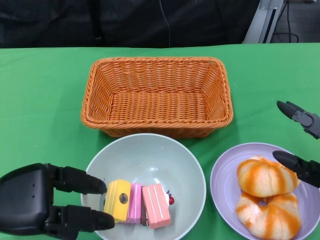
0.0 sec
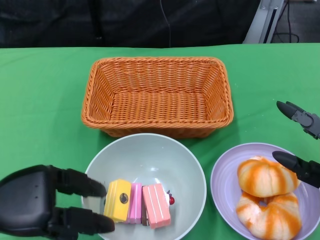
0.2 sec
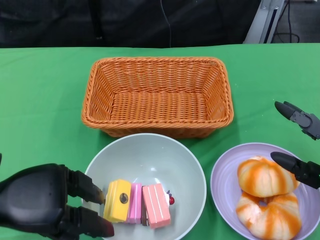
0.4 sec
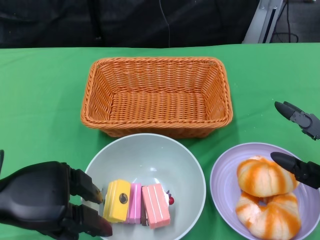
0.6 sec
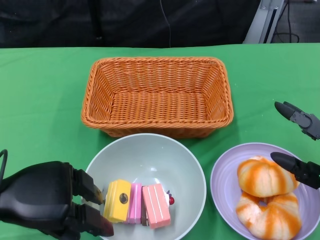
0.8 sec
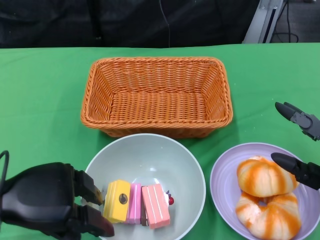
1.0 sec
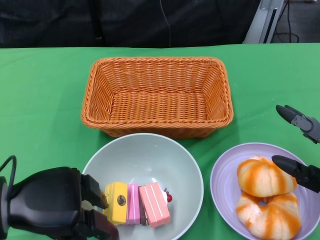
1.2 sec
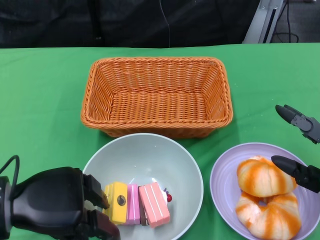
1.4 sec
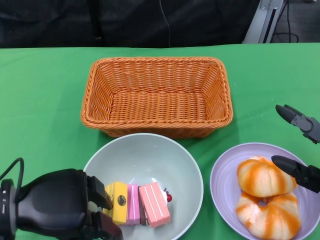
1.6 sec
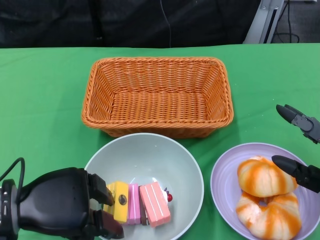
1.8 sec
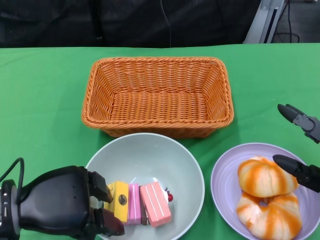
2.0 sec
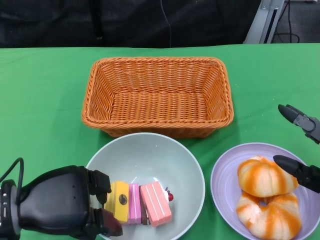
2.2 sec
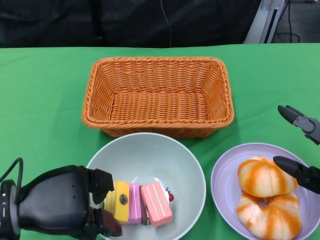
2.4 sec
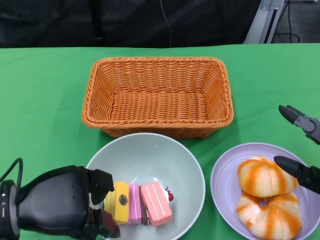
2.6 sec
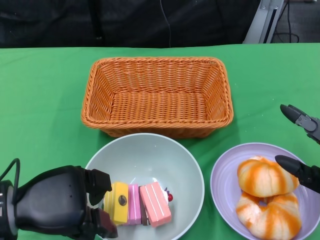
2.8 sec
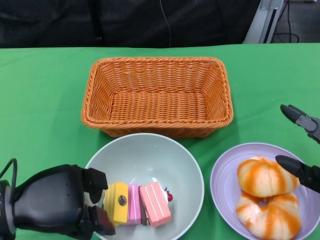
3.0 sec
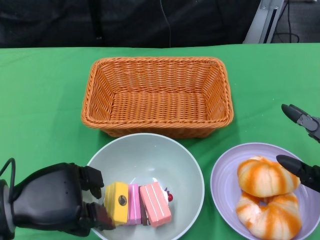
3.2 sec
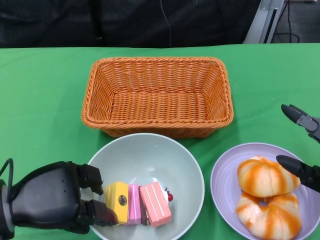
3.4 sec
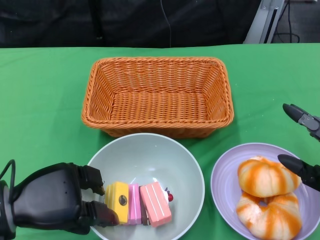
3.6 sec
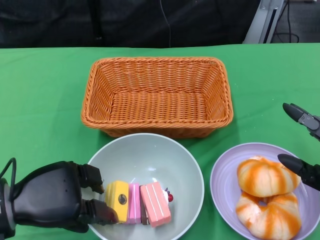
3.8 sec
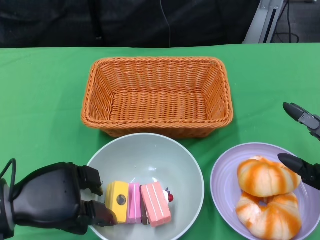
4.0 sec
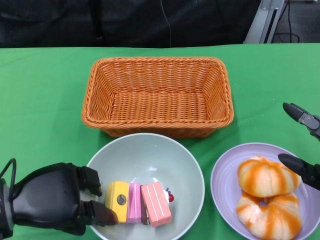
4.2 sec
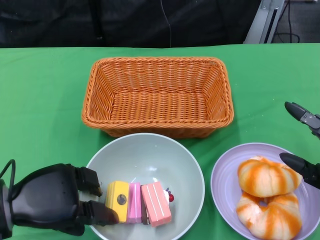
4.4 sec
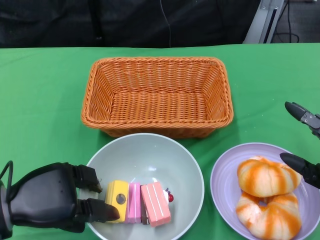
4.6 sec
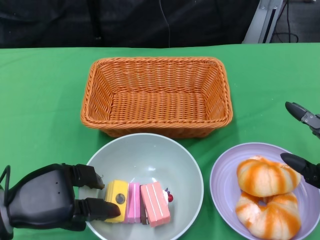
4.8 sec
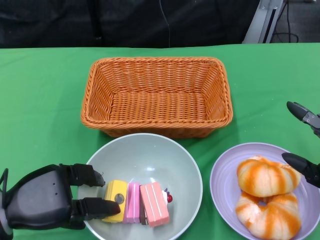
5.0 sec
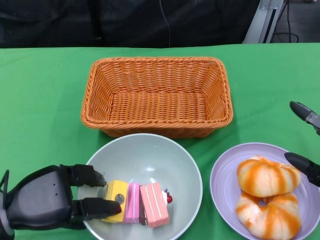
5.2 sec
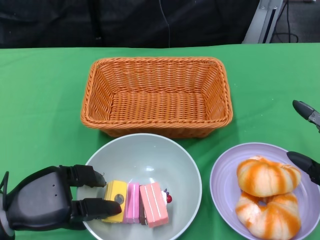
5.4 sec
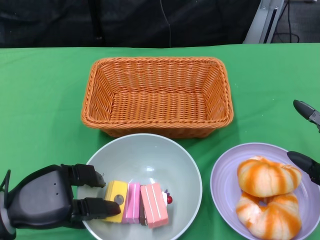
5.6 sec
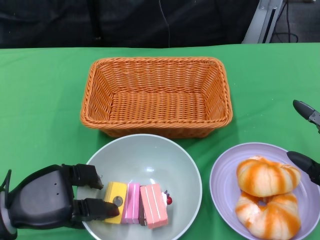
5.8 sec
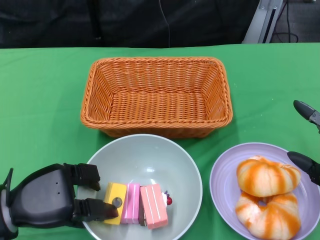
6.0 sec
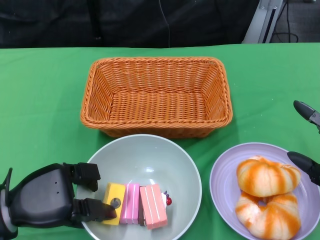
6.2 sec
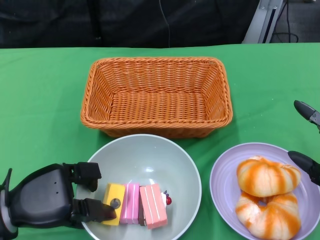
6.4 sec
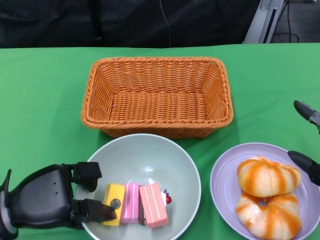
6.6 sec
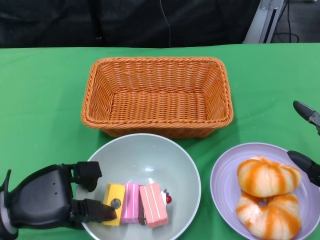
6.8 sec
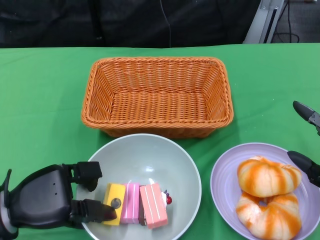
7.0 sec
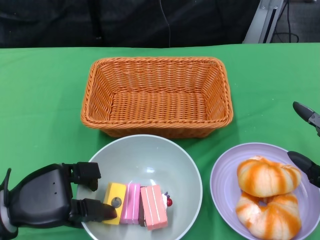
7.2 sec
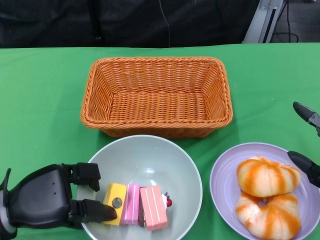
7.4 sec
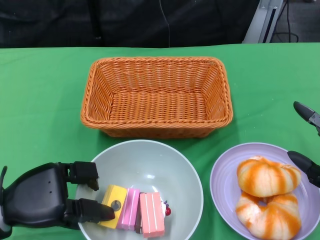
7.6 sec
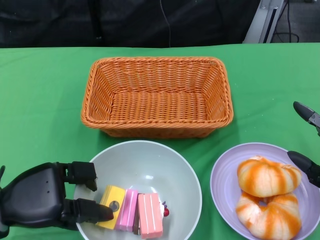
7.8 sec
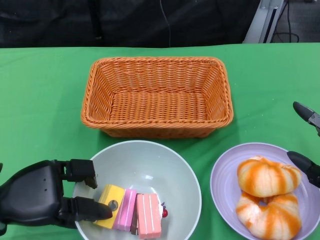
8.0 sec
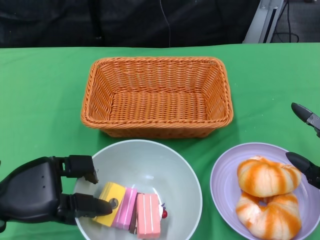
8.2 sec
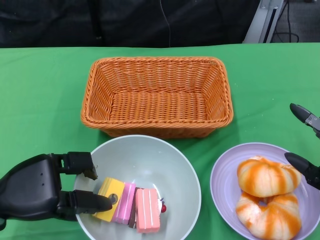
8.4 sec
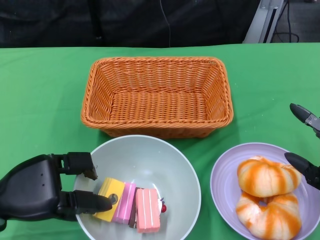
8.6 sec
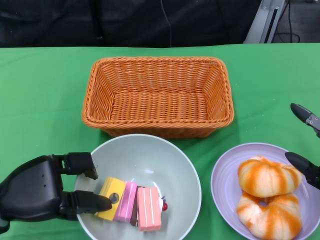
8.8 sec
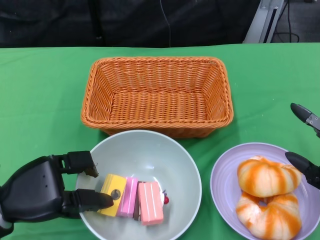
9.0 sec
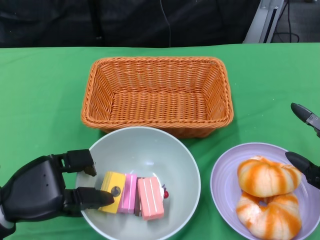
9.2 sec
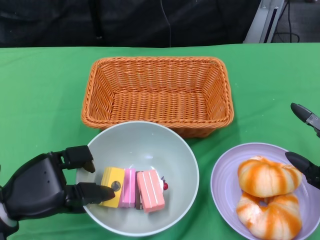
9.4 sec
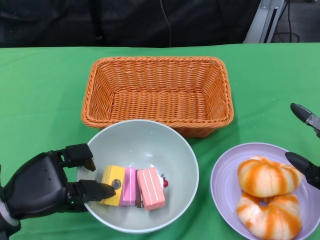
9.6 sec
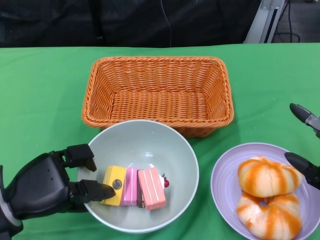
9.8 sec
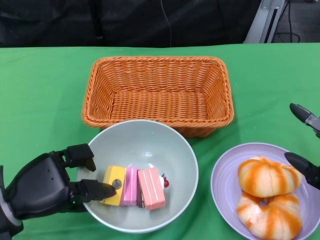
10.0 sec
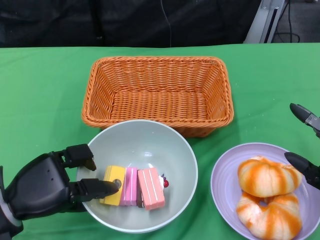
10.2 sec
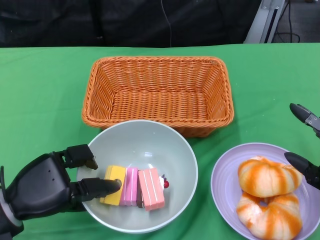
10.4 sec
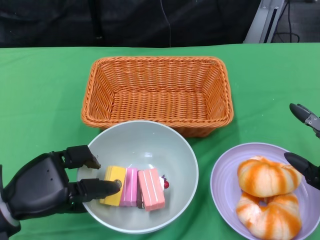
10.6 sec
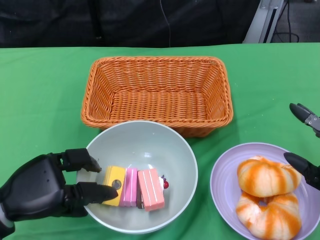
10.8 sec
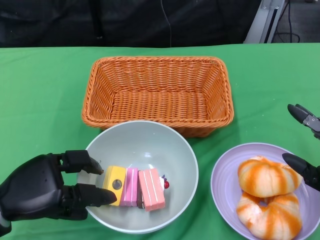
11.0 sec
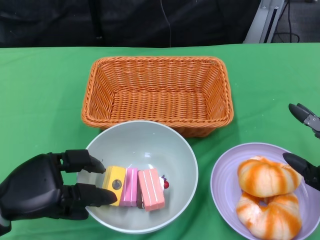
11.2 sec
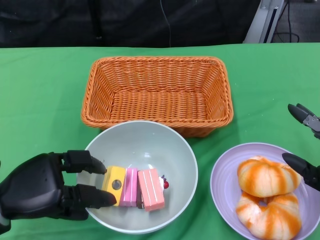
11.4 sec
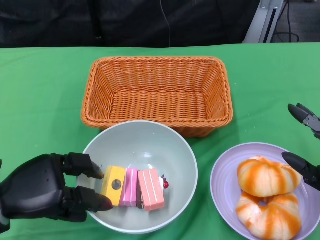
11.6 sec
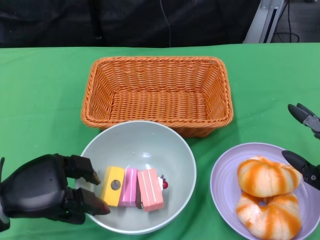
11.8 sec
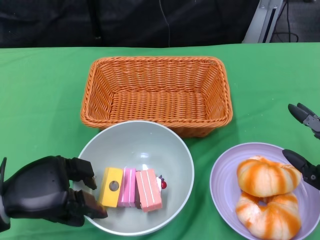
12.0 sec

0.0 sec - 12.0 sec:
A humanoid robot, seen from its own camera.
Step, 0.0 sec - 9.2 sec: Grasp the bowl with the left gripper.
0.0 sec - 6.0 sec: The hands stay close to where they were, moving slightly.
6.0 sec - 7.6 sec: Neither hand changes place.
7.6 sec - 12.0 sec: There are only small adjustments of the hands.

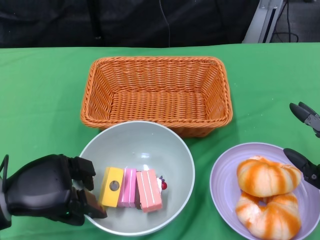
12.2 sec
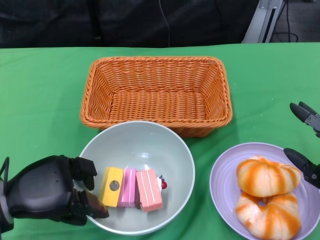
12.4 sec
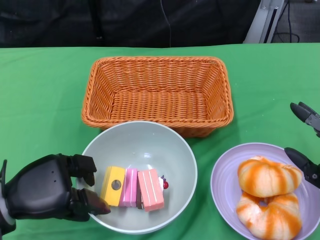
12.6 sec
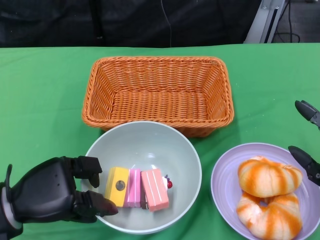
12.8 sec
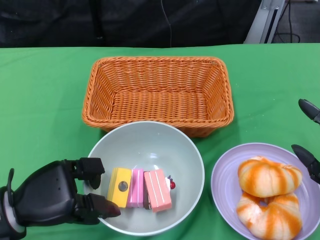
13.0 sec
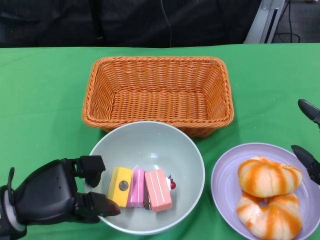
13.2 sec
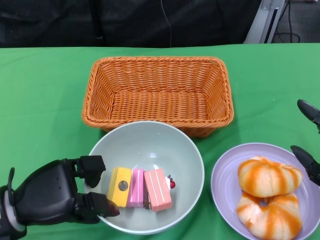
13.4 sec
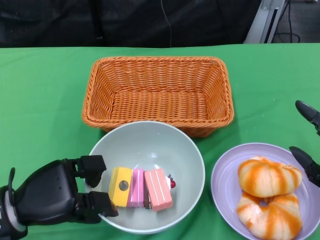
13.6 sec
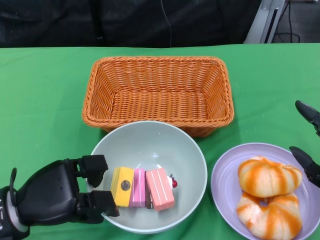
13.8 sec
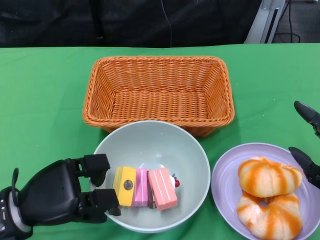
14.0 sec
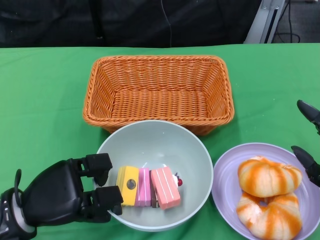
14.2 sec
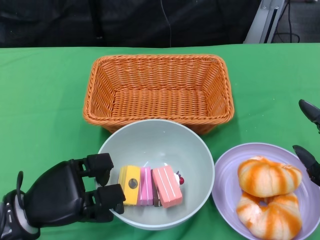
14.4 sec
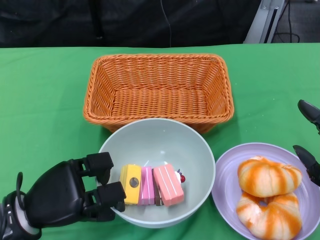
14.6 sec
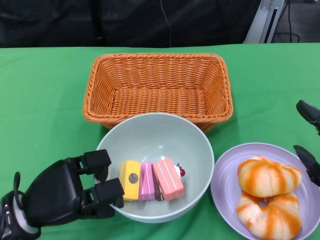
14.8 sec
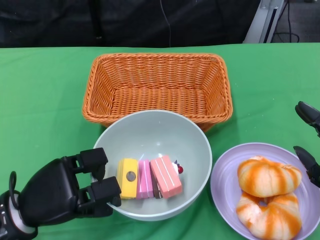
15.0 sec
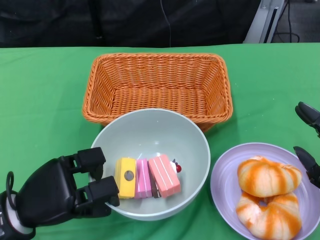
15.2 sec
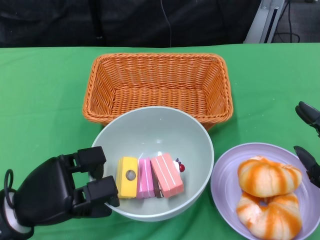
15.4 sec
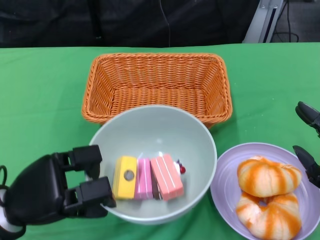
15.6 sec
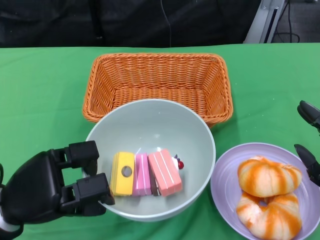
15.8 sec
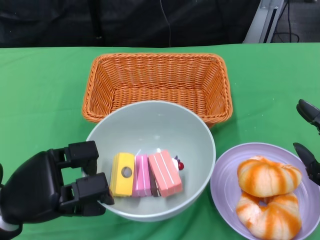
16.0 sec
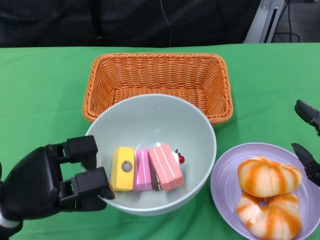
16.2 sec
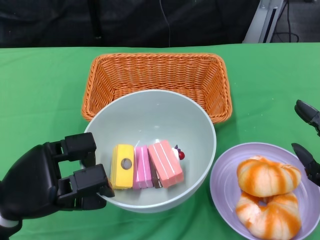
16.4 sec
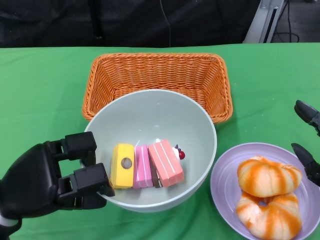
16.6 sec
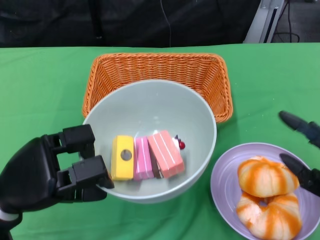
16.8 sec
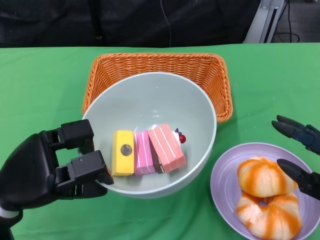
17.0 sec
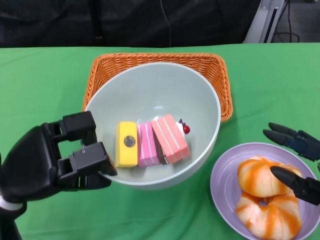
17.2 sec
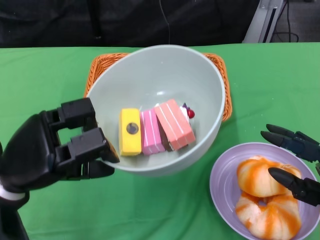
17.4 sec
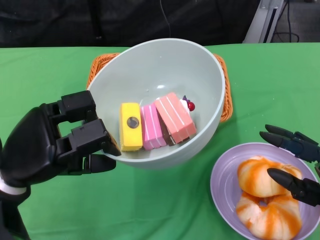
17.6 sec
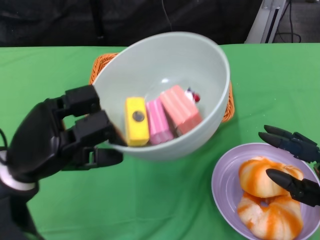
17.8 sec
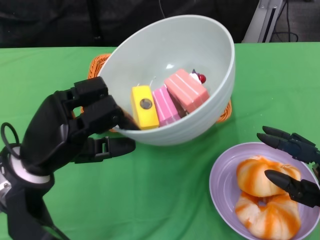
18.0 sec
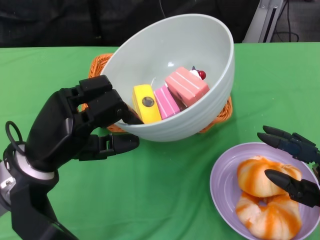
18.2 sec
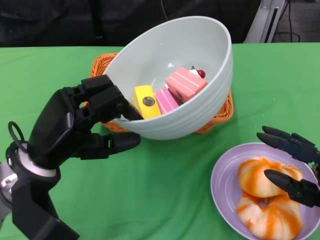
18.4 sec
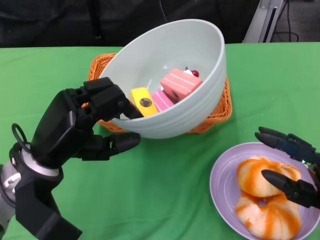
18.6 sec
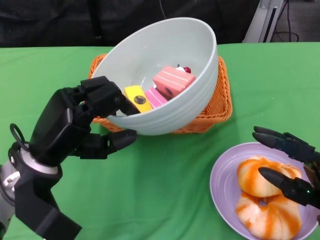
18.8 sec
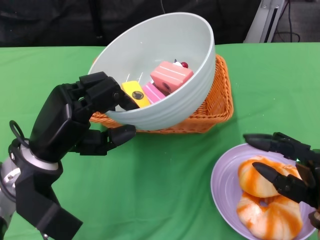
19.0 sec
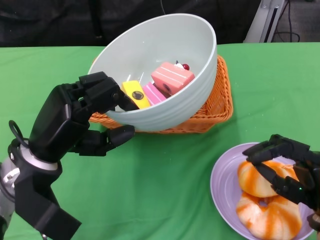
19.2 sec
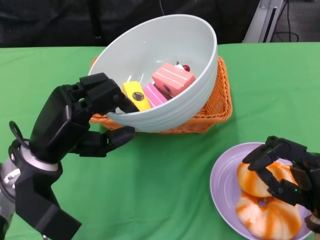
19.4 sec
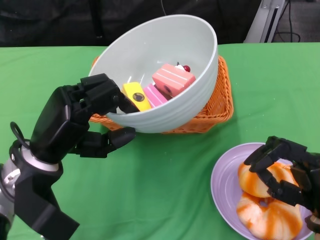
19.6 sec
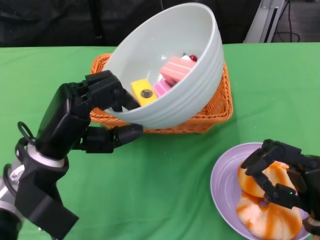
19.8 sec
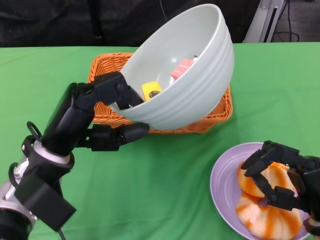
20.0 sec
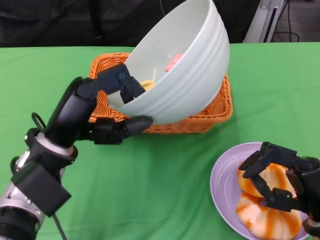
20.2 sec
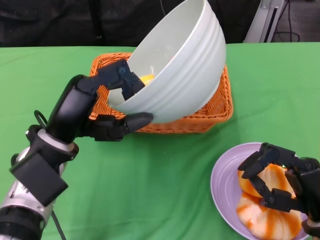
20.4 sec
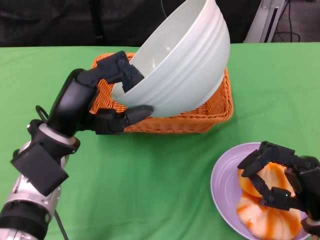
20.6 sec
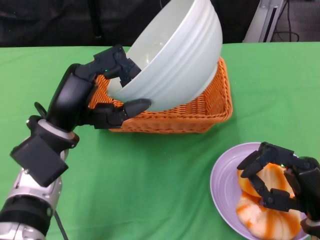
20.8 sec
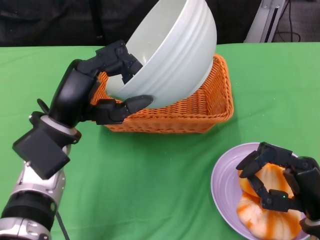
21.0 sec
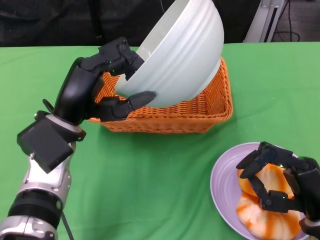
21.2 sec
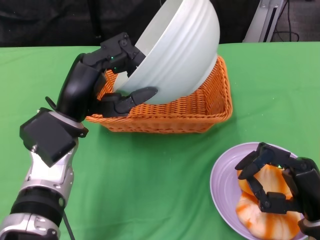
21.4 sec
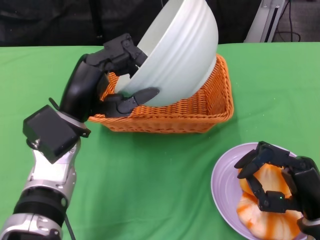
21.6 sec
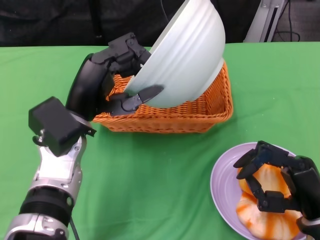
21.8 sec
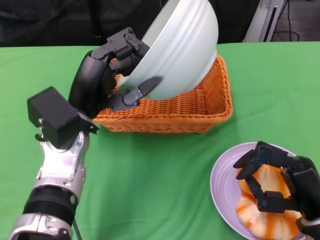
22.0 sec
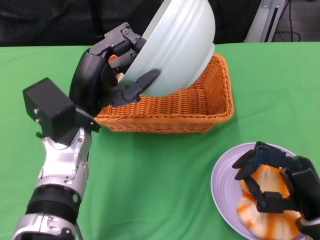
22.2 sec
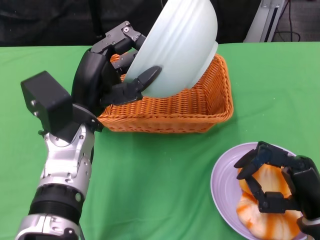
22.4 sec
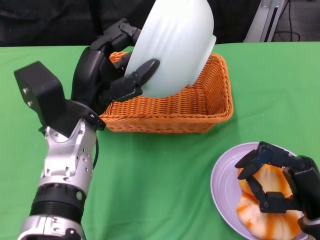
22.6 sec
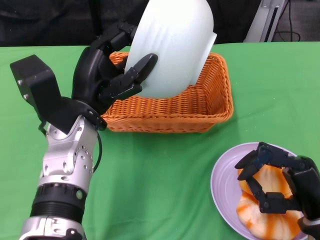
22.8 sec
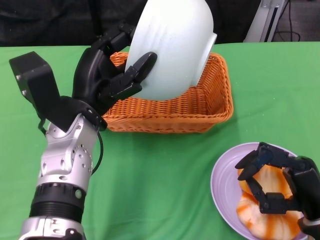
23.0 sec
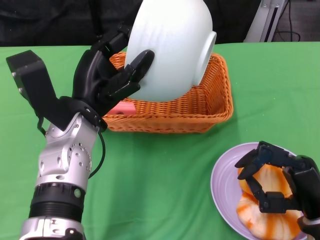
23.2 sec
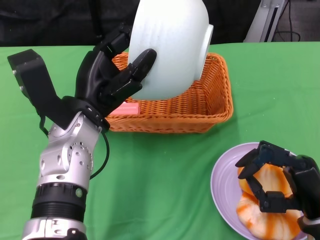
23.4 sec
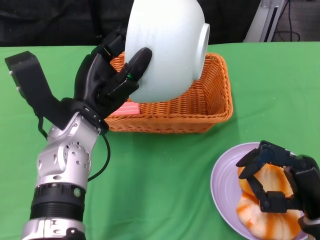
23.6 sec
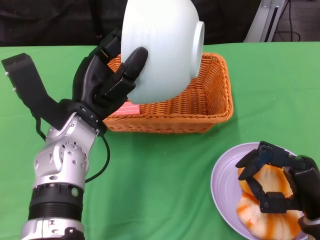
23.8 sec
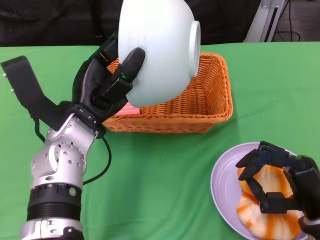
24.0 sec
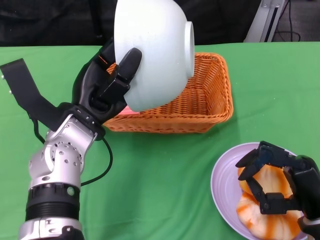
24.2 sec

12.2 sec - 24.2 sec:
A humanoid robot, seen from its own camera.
12.2 sec - 13.8 sec: The hands make only small movements.
13.8 sec - 16.6 sec: The hands stay close to where they were, moving slightly.
16.6 sec - 18.2 sec: The left hand ends up roughly 5 cm from where it was.
